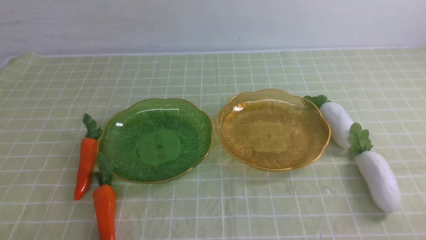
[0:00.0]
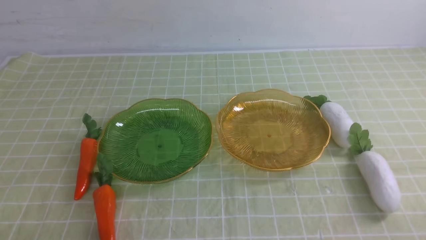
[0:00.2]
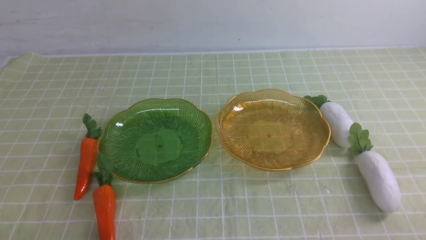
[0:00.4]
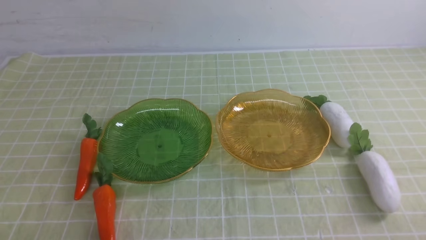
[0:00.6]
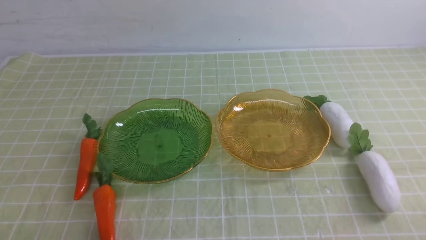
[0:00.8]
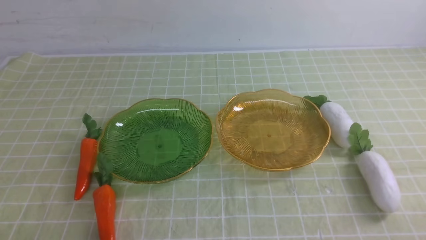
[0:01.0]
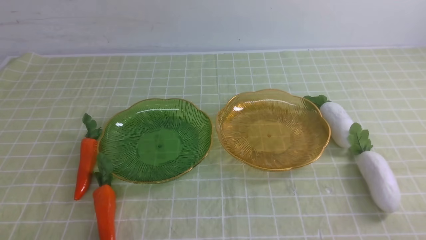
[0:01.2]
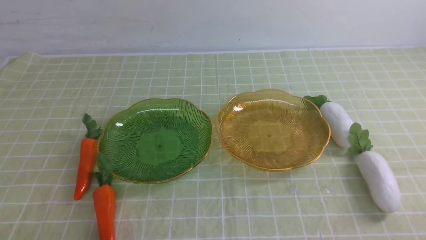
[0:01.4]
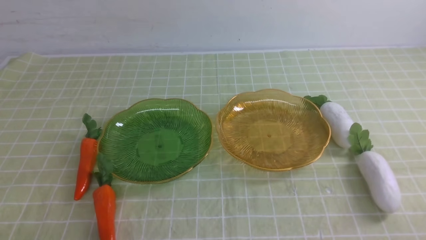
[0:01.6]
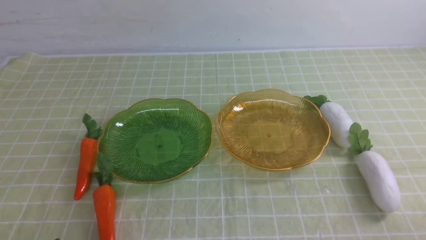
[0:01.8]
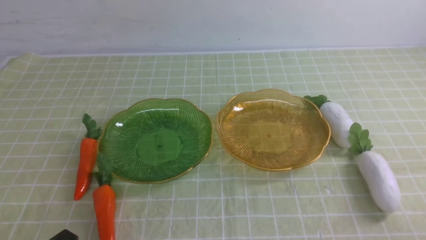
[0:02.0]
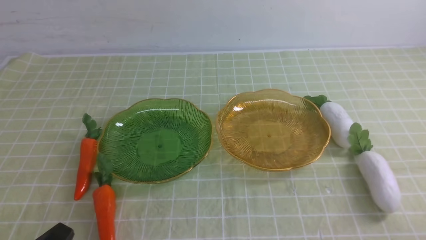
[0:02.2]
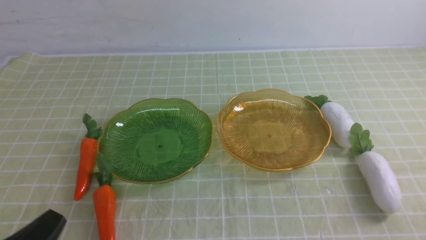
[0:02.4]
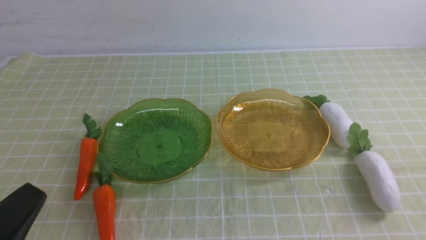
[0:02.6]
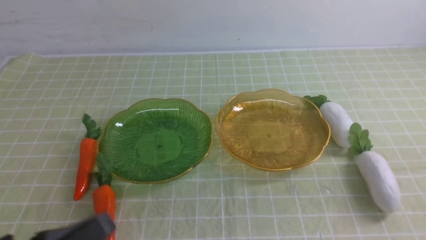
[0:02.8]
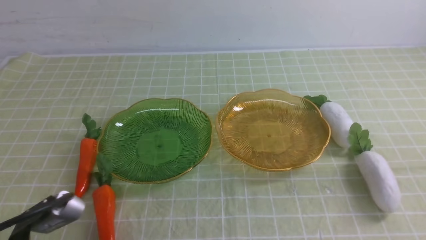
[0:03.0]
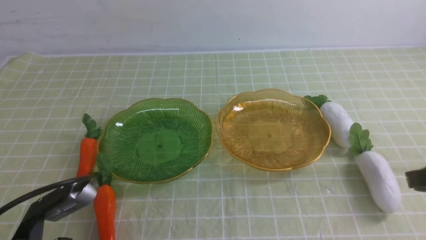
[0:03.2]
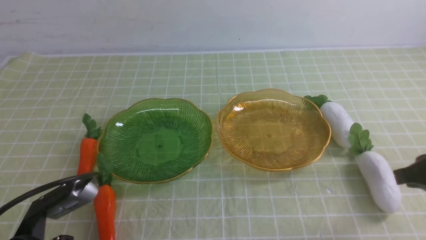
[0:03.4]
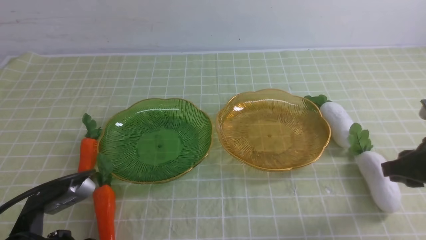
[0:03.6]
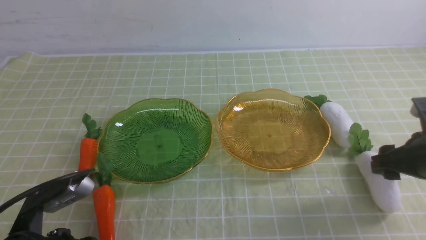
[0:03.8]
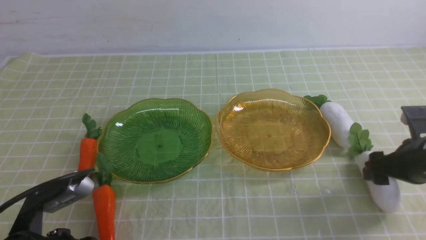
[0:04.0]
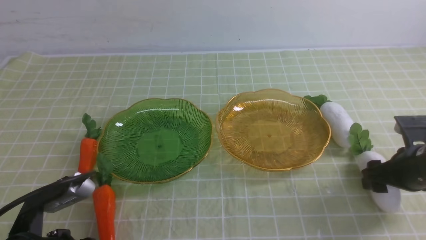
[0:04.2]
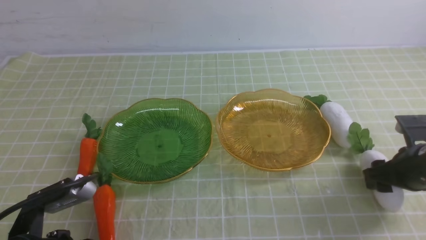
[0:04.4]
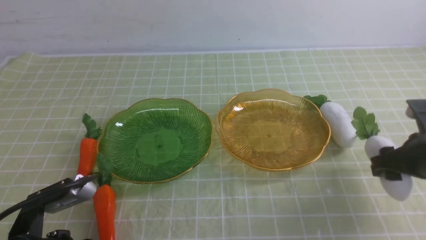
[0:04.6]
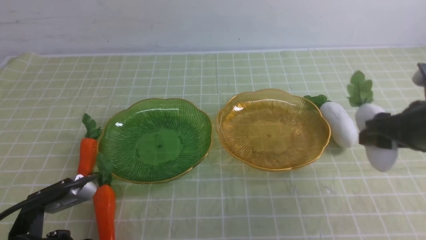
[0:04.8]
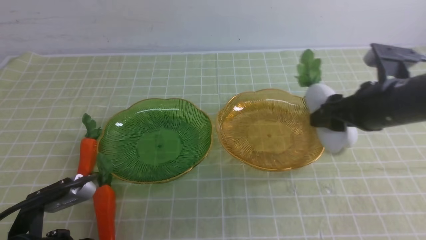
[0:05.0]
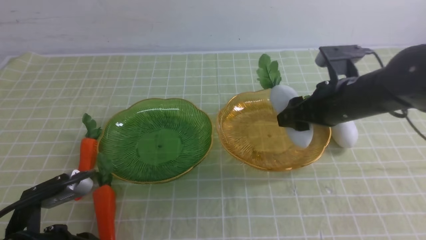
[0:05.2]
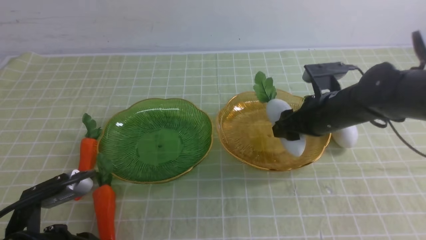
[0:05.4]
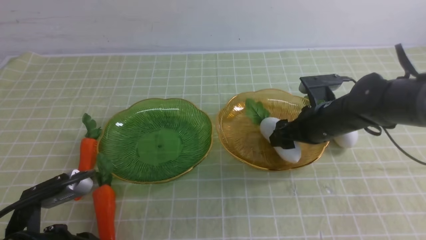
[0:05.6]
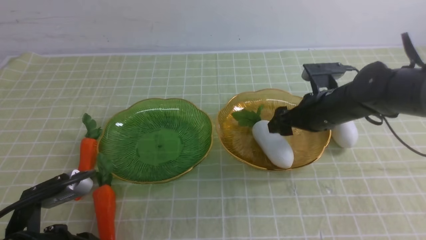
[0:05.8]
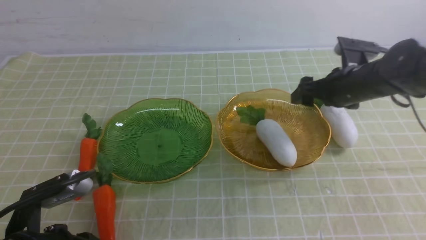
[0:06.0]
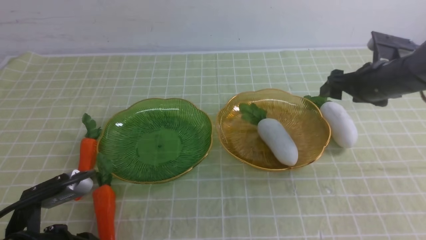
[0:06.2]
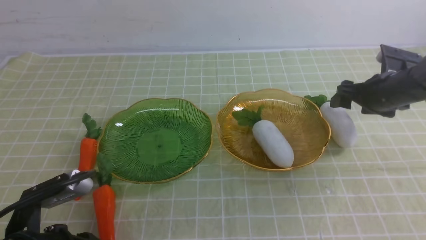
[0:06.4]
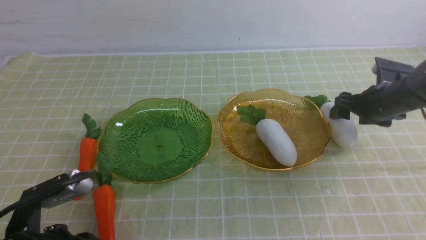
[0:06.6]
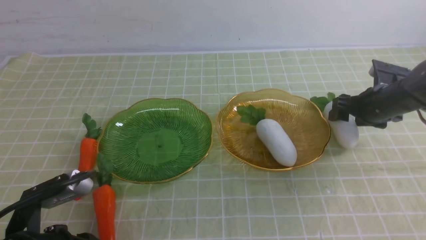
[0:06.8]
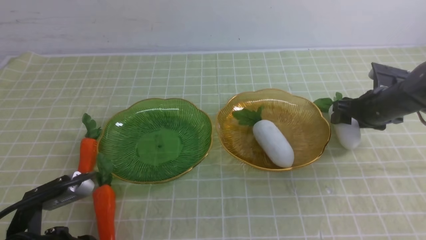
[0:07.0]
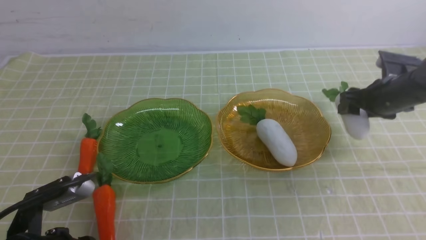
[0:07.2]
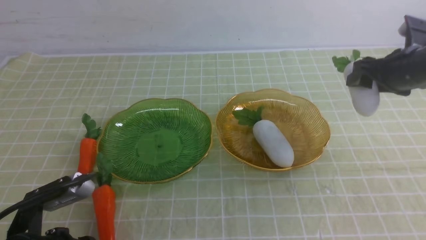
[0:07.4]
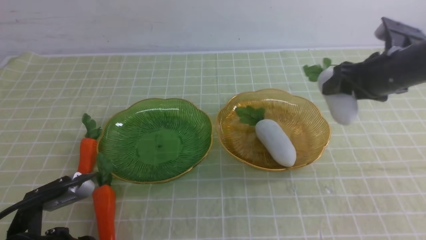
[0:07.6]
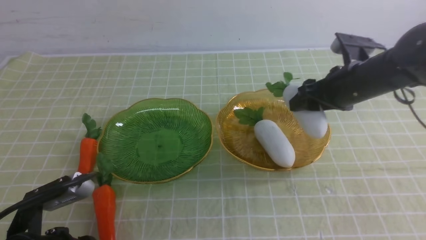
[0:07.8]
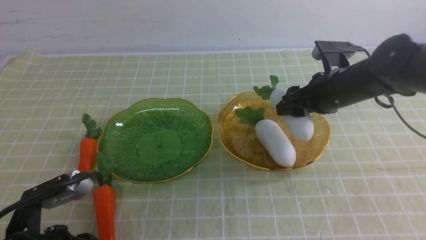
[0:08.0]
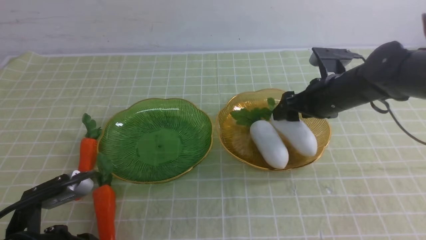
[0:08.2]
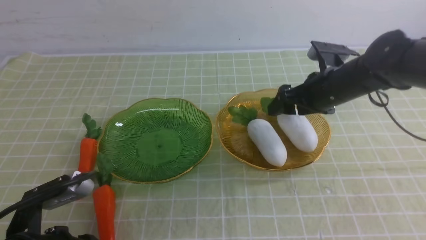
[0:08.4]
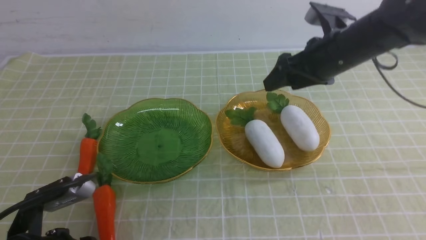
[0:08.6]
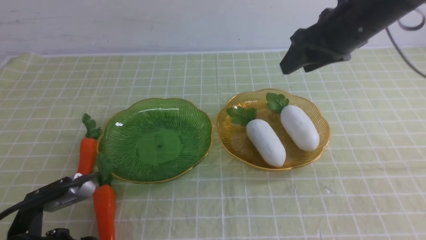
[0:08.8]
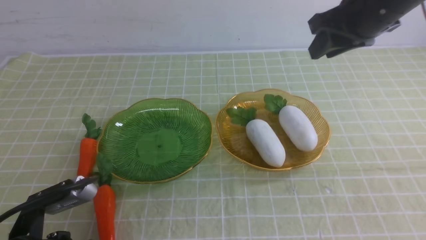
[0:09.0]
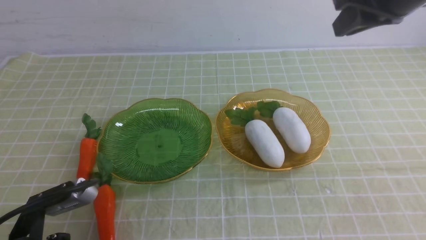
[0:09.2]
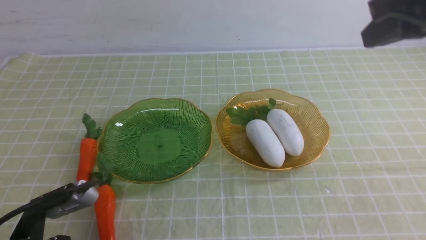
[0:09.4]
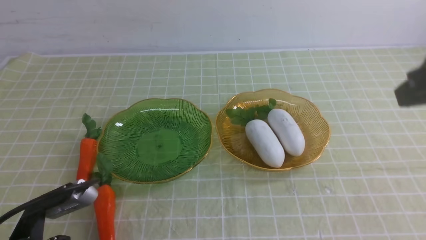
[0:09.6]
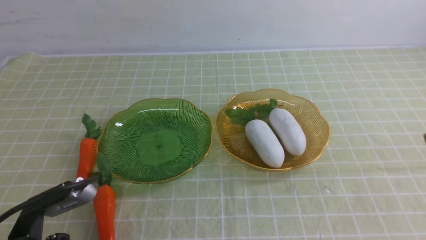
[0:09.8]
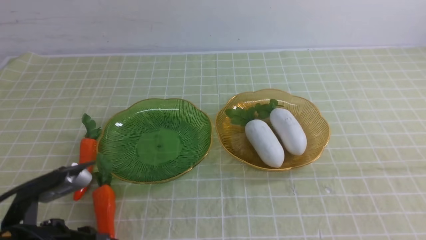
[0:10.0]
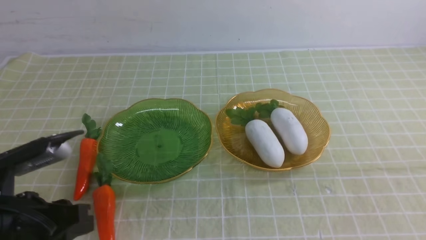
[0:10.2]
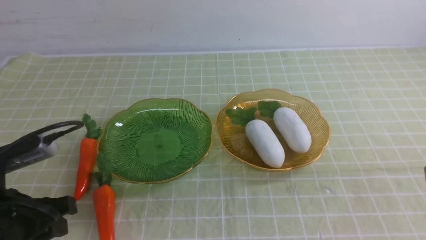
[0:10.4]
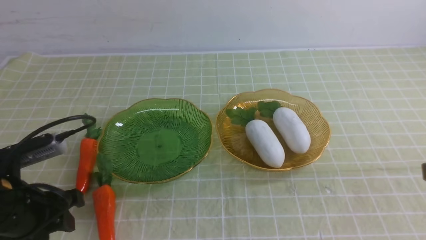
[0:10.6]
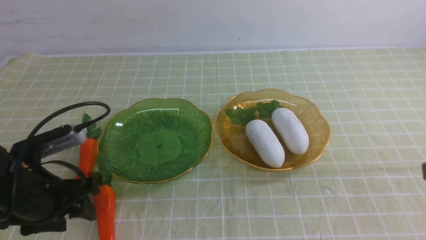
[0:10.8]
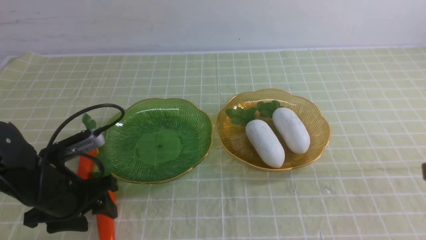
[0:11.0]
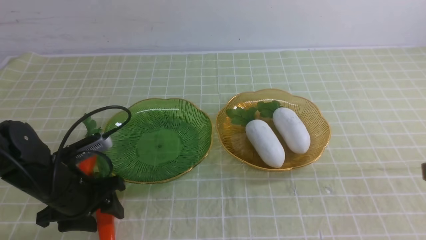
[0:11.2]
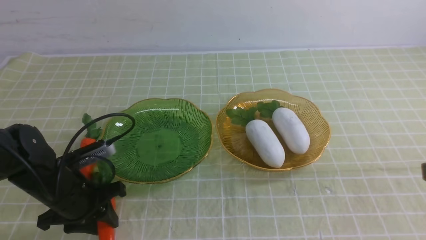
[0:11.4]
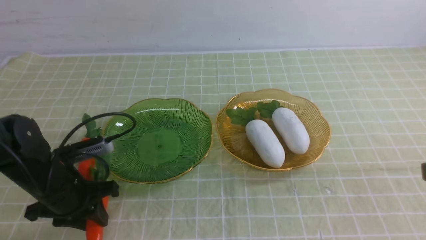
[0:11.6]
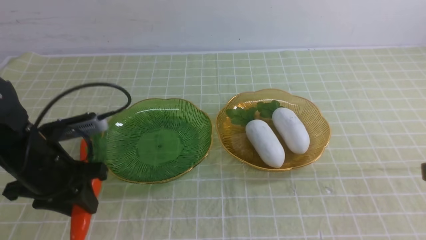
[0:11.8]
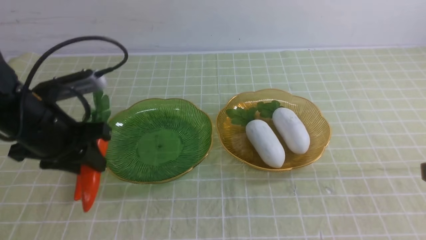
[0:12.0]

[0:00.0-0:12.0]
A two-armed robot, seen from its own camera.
Step, 0:00.0 to 0:08.2: use the right arm to grab a radish and put it into the right plate.
0:01.6 to 0:03.0: The left gripper is displaced upward by about 5 cm.
0:03.0 to 0:04.4: The right gripper goes about 15 cm forward and downward, and opens.
0:04.4 to 0:06.0: The right gripper heads forward and to the left, covering approximately 15 cm.
0:07.6 to 0:09.0: The right gripper moves upward, about 15 cm.
0:09.0 to 0:10.4: The right gripper goes approximately 25 cm backward, while the left gripper shifts by about 5 cm.
0:10.4 to 0:12.0: The left gripper shifts some 10 cm forward, and opens, then closes once more.

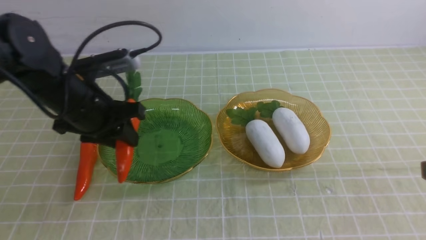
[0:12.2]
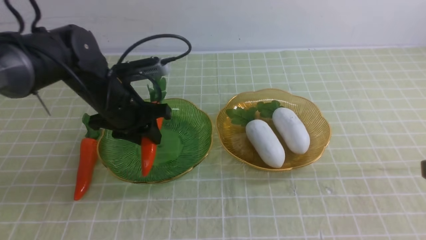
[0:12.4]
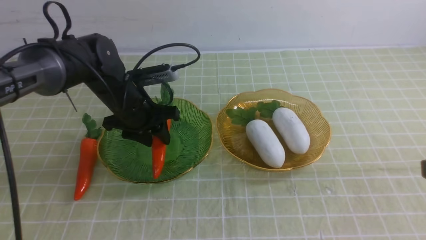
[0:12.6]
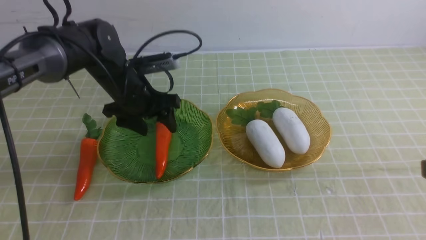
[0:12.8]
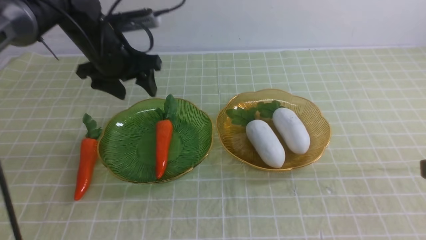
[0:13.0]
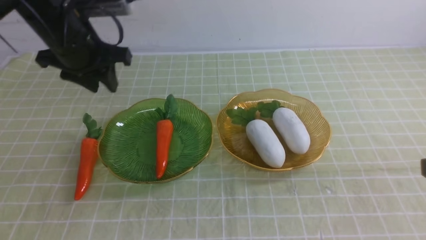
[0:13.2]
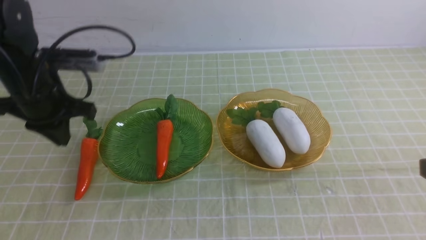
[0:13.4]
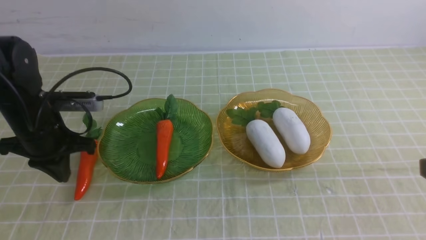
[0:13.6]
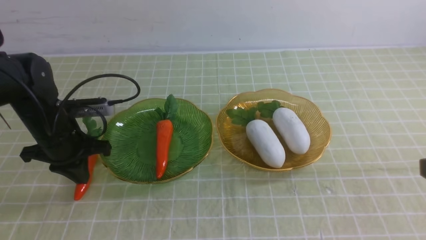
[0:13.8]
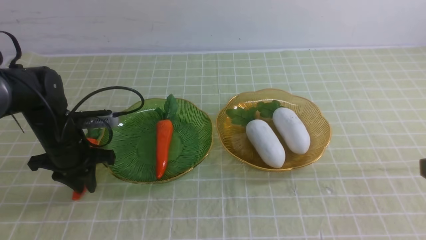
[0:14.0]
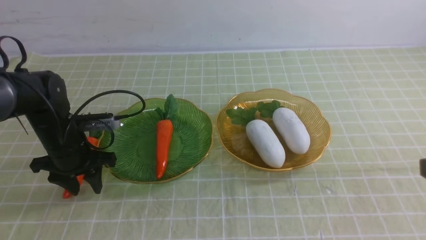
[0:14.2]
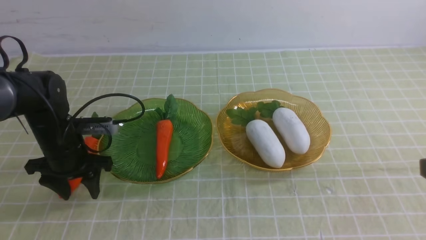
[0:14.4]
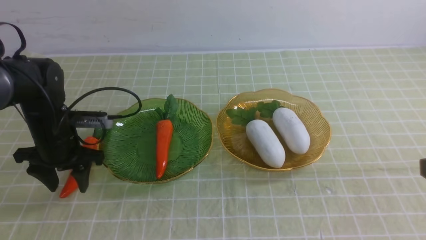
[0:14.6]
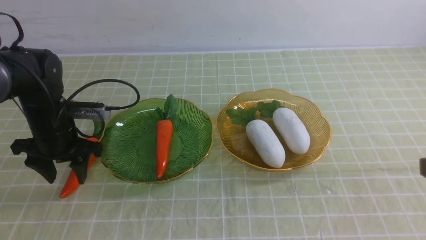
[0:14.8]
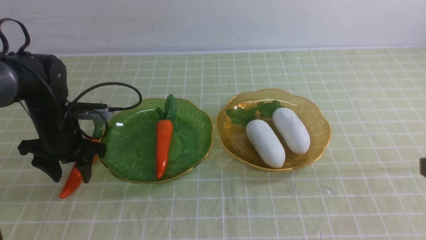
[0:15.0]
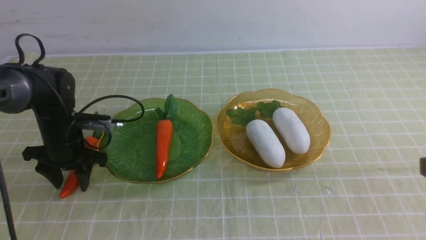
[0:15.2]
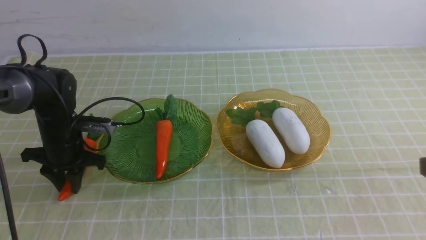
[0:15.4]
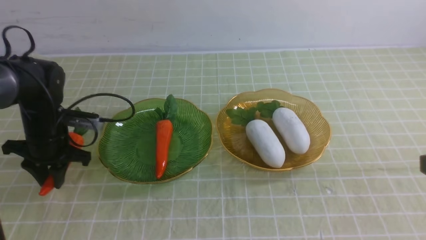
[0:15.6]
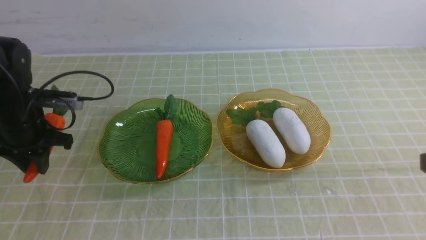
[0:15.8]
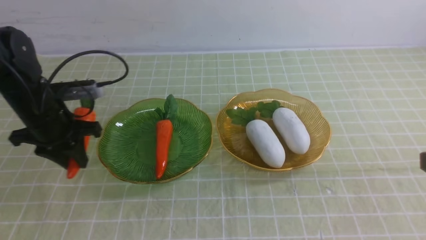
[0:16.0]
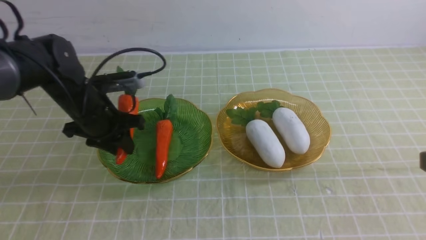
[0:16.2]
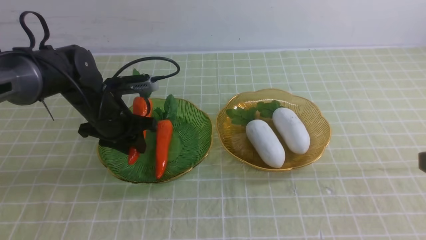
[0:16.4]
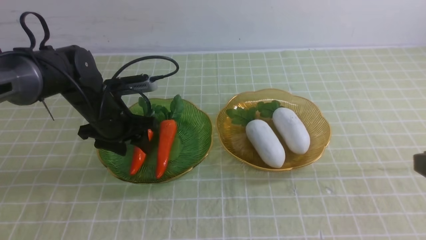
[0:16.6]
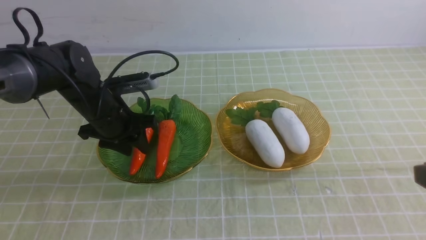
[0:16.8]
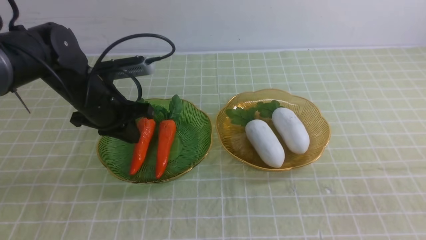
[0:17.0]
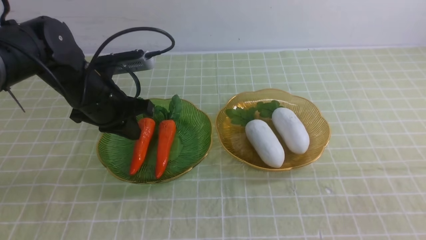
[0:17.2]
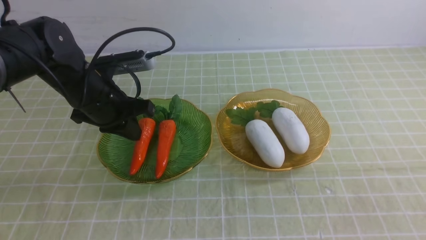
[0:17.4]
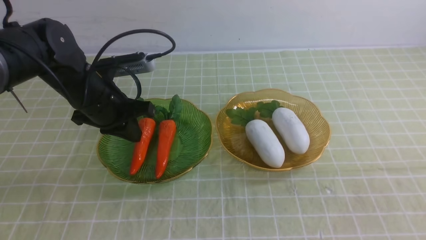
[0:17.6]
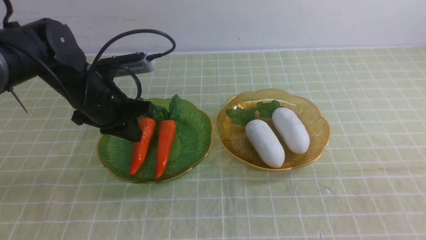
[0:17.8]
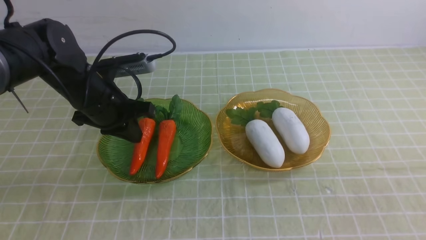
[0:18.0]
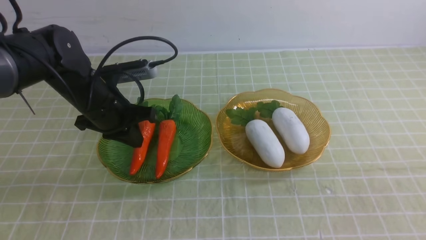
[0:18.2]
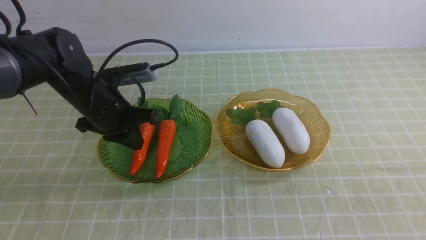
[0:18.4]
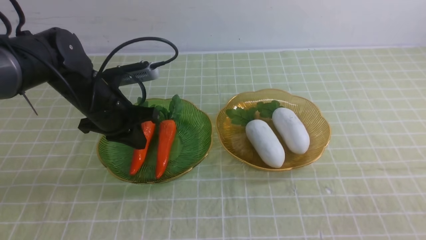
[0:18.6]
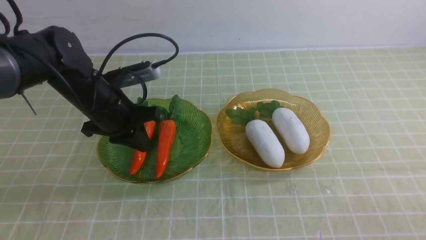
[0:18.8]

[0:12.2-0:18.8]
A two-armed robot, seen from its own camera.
Step, 0:12.2 to 0:16.6: use the left arm to grab a carrot and put it into the left plate.
0:12.2 to 0:13.8: The left gripper moves up and down over roughly 10 cm, changing direction 2 times, and opens, then closes again.
0:13.8 to 0:15.4: The left gripper changes place by approximately 5 cm, and opens.
0:15.4 to 0:17.2: The left gripper is displaced upward and to the right by some 15 cm, and closes up. The right gripper is displaced backward by roughly 5 cm.
0:17.2 to 0:18.8: The right gripper travels downward by approximately 10 cm.
